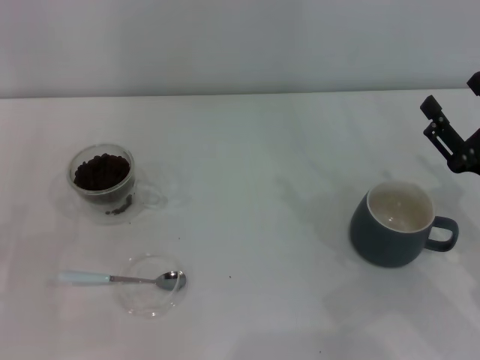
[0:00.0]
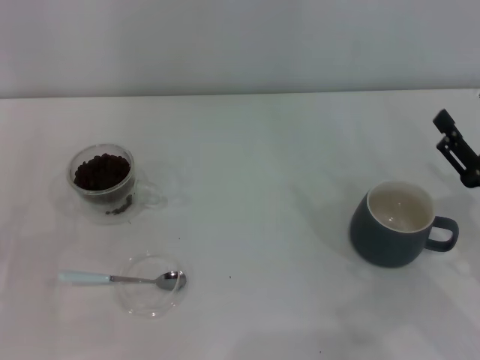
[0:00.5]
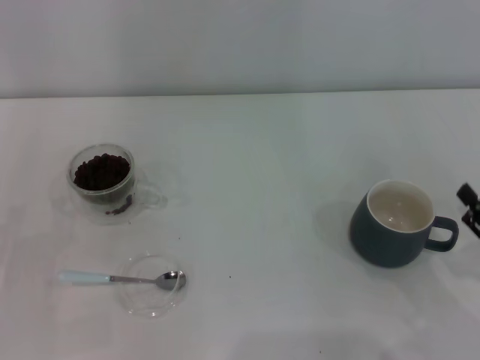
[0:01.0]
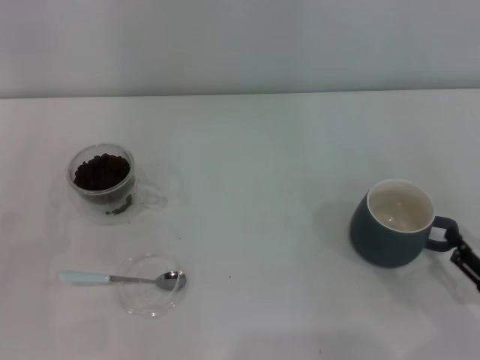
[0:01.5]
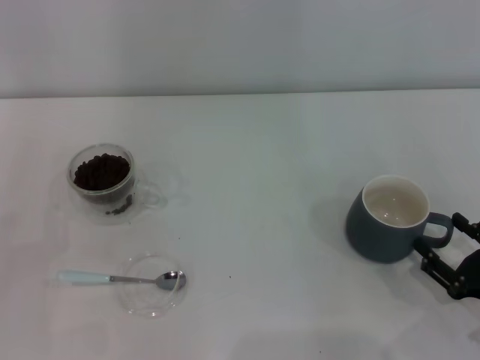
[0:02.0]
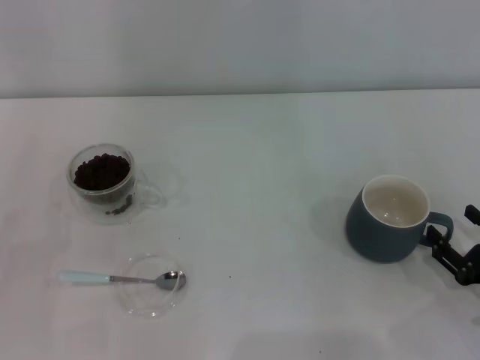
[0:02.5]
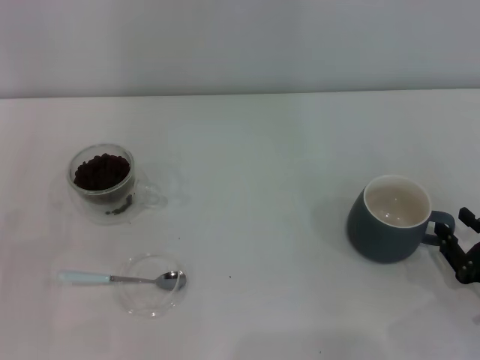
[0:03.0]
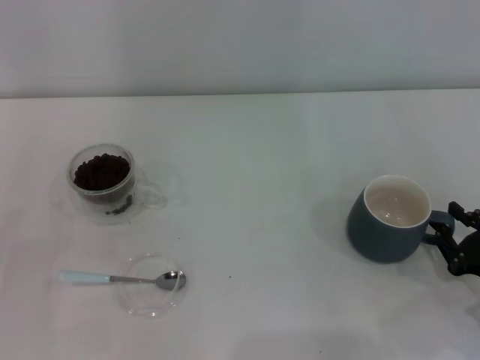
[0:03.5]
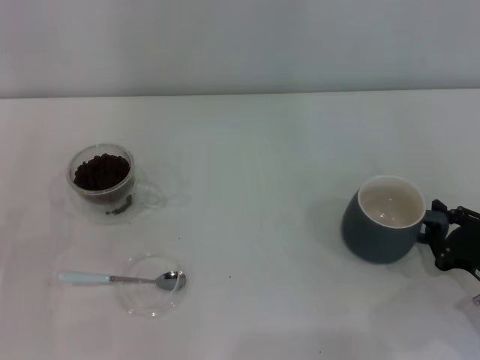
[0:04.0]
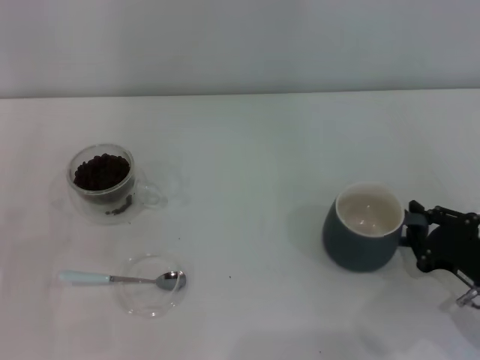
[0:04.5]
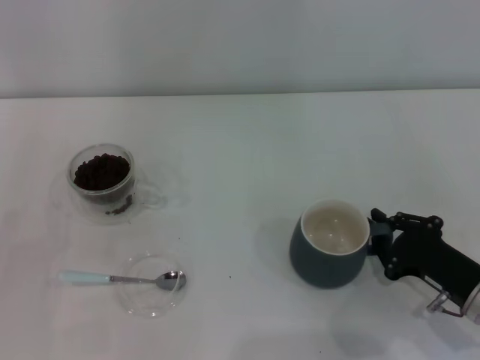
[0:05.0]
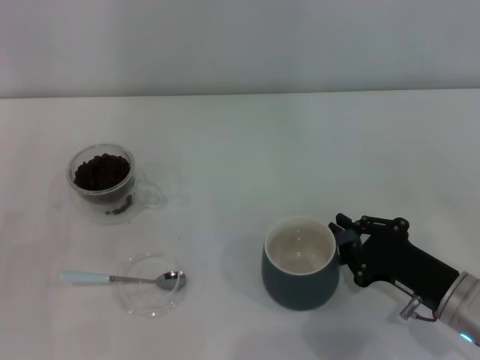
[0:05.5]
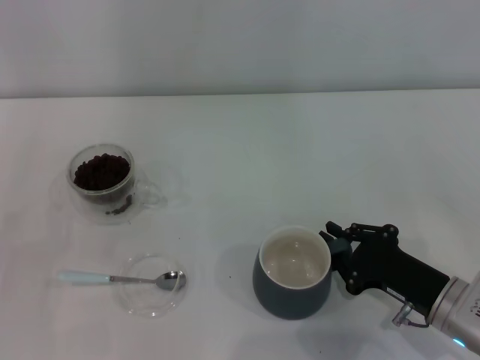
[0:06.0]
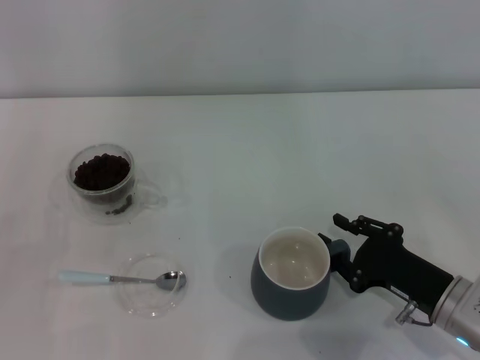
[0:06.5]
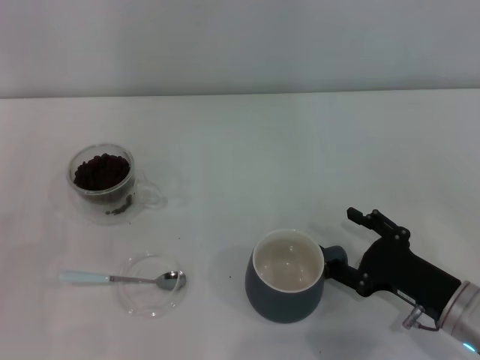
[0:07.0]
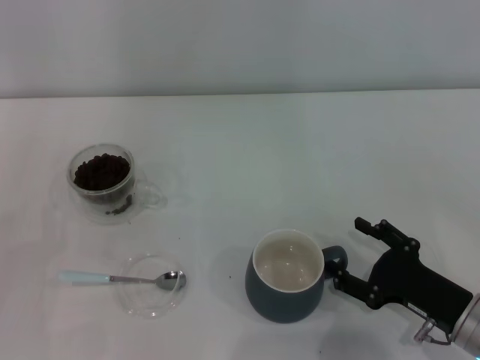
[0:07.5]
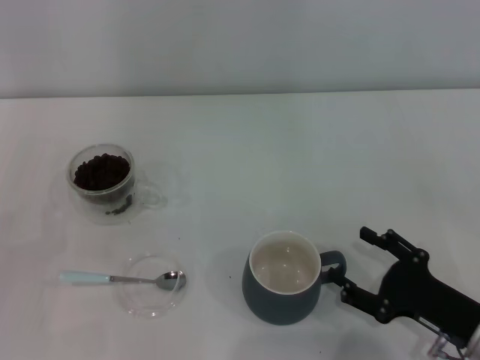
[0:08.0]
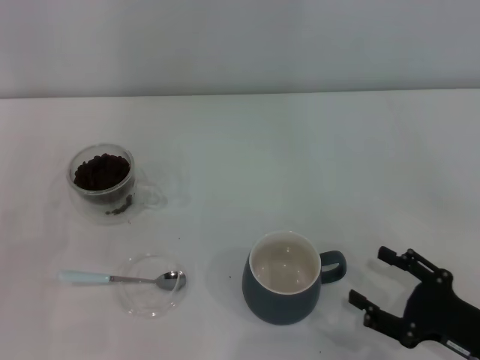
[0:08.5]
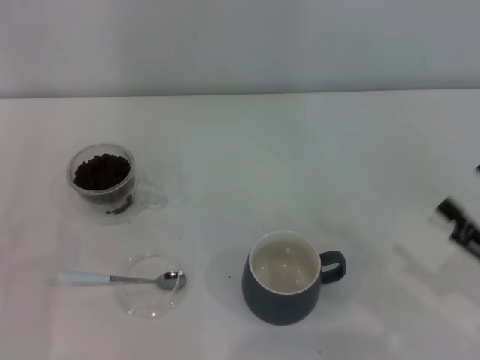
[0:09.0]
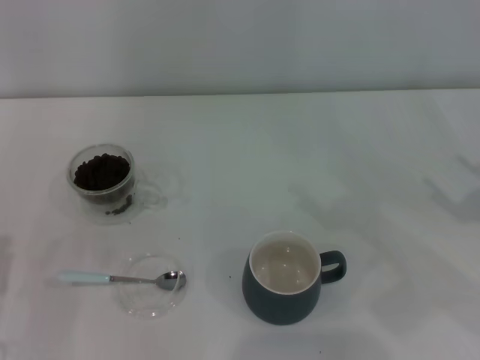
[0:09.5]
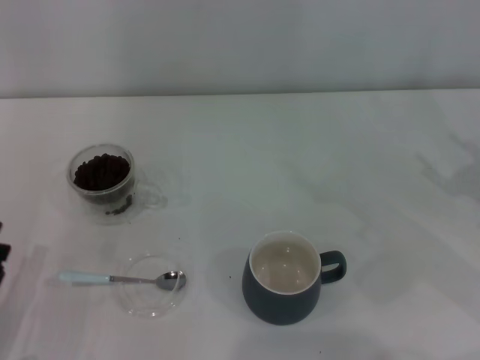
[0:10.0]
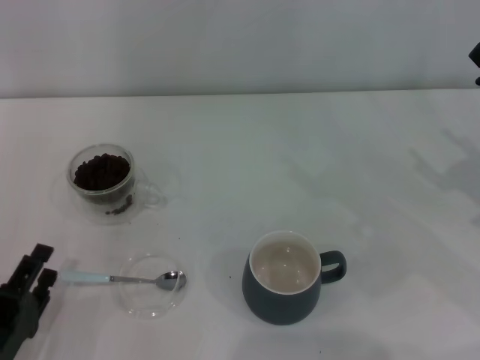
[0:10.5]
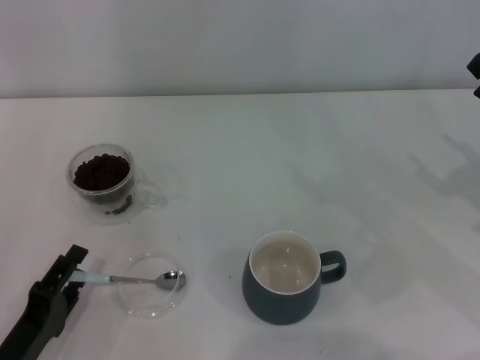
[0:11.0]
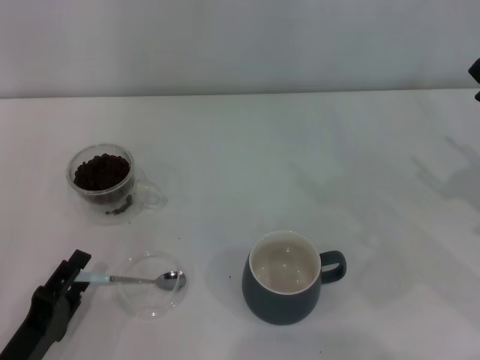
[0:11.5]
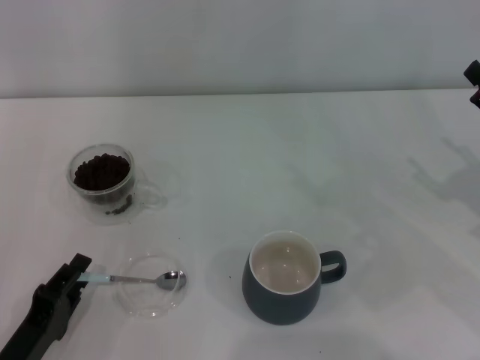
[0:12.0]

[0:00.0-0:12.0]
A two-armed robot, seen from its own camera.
Task of the whole recording: Use a blue spoon to take out the coffee beans from the glass and pour them into the gray cup.
0:00.0 to 0:02.0: The right gripper travels backward and downward by approximately 10 cm.
0:02.0 to 0:04.0: The right gripper closes.
0:04.0 to 0:06.0: The right gripper goes roughly 10 cm to the left.
0:06.0 to 0:08.0: The right gripper opens.
0:08.0 to 0:10.0: The right gripper heads upward, to the right and forward, covering roughly 15 cm.
0:10.0 to 0:12.0: The left gripper closes up.

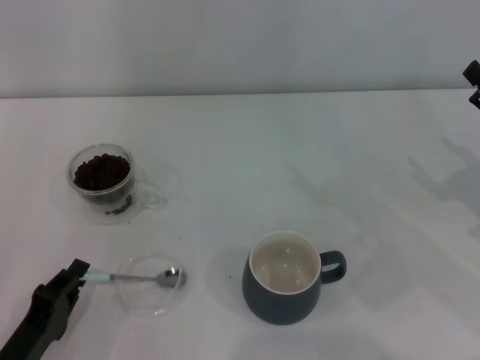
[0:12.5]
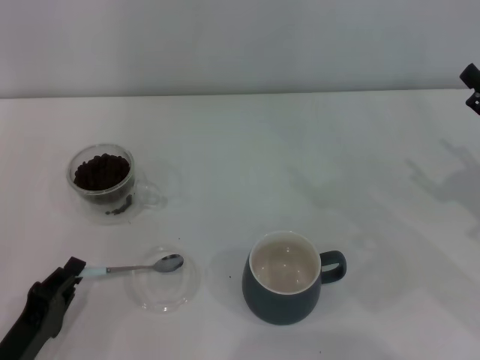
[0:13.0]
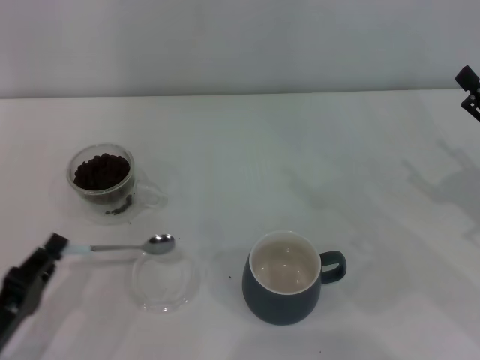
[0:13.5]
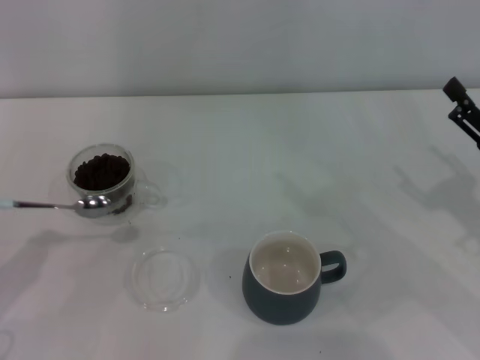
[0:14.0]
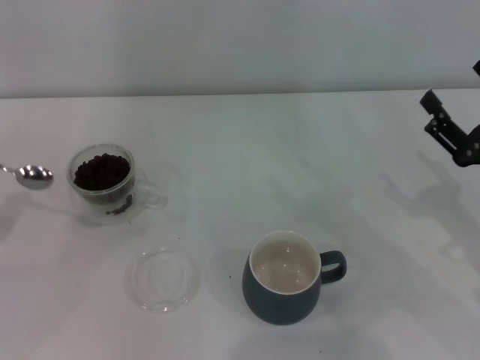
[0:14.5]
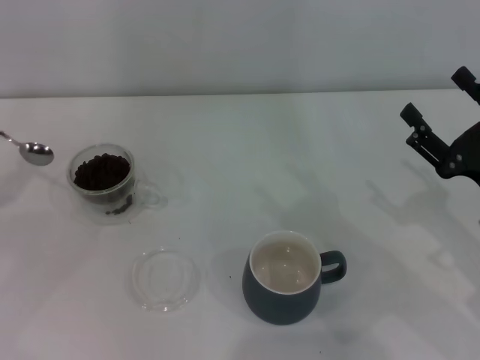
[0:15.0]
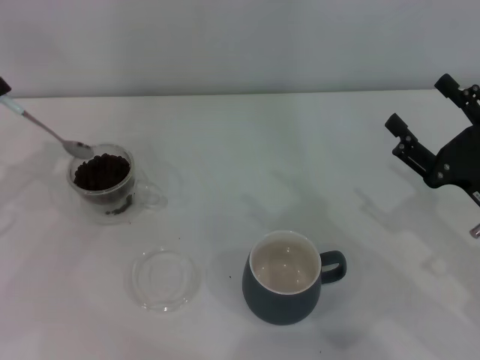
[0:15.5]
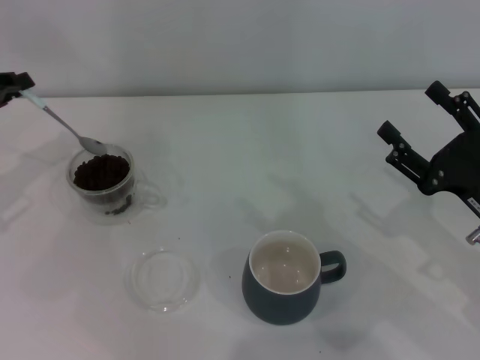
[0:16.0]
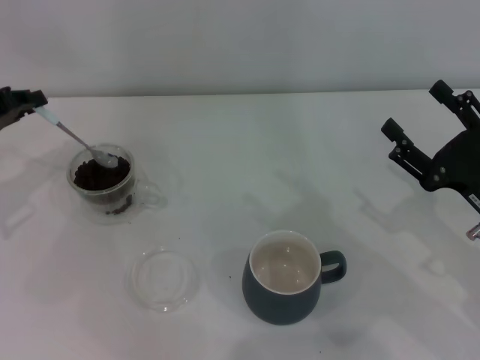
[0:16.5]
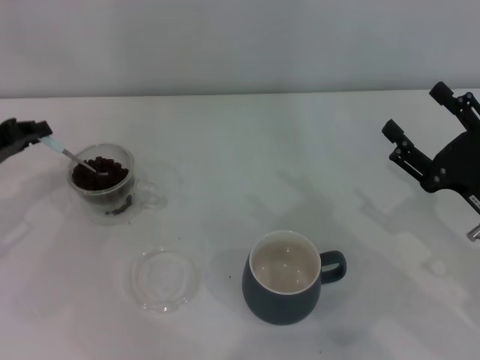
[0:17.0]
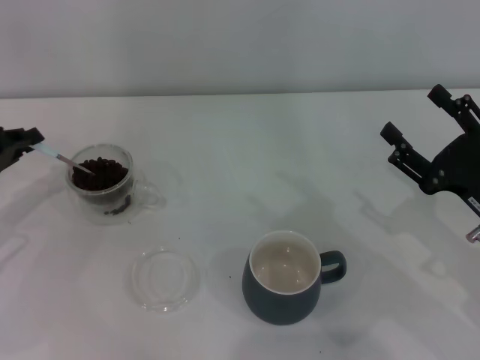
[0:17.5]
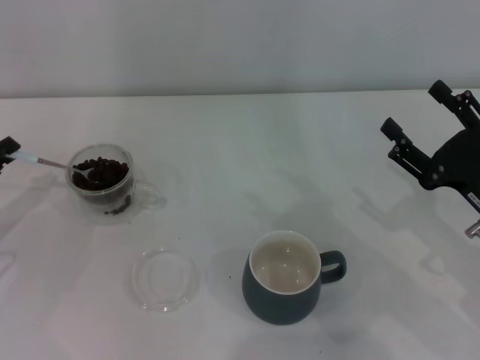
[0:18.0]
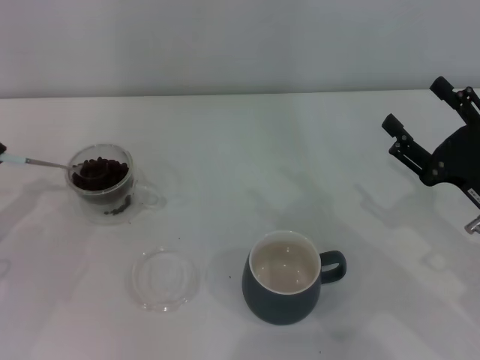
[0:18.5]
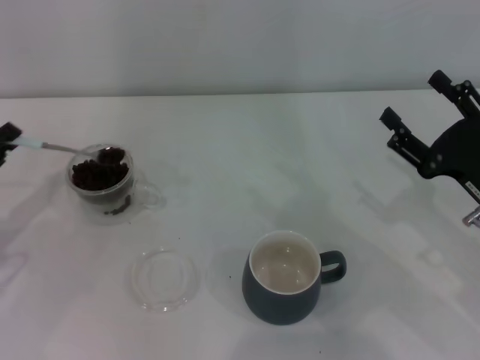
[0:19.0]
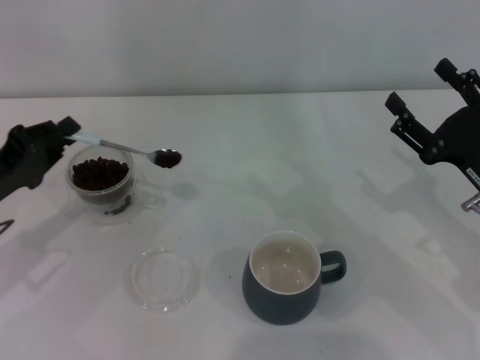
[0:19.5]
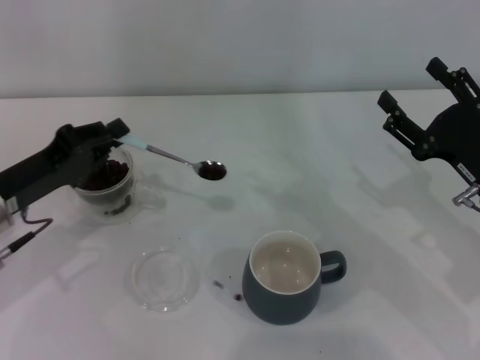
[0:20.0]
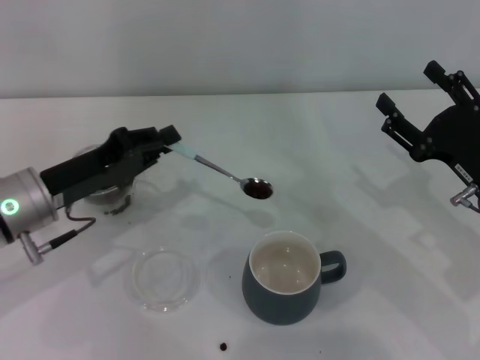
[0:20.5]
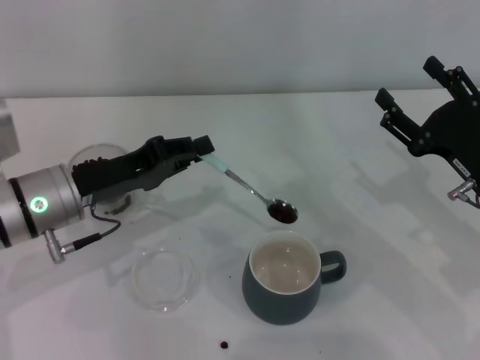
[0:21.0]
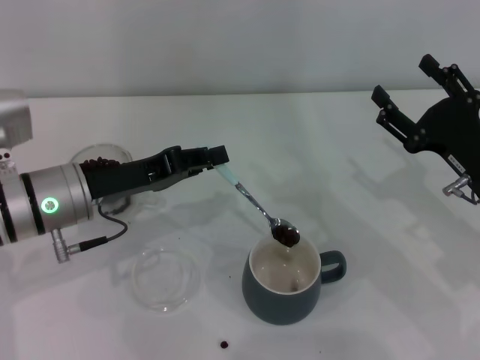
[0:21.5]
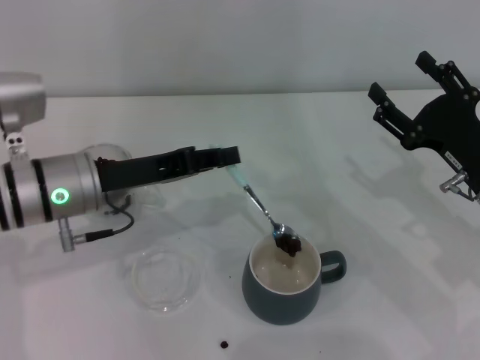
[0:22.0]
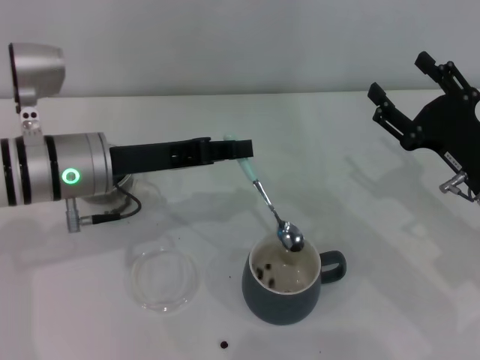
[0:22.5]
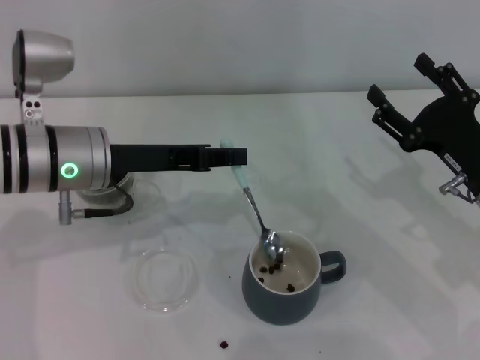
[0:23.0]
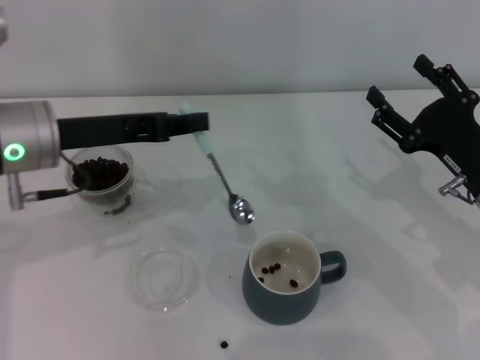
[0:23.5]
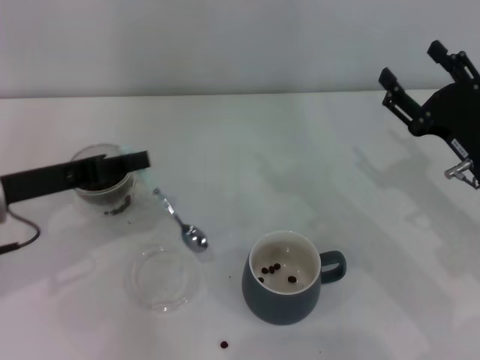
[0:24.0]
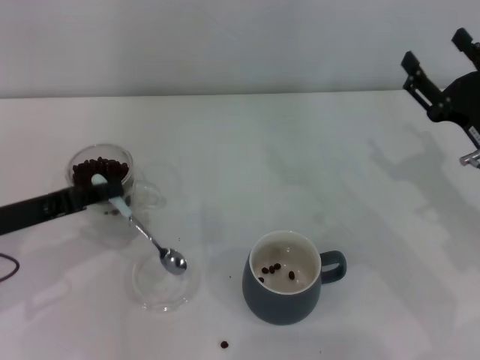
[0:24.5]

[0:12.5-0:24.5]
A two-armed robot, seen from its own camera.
Task of the whole recording: Use a blue spoon to take out the coffee beans from the glass and pour them into the gray cup.
Step, 0:13.5 to 0:23.5: Scoop a spoonful of beans into the cup with the right gripper.
0:12.5 to 0:14.5: The left gripper shifts some 20 cm to the left, upward and forward, while the right gripper ends up about 5 cm from where it was.
0:14.5 to 0:16.5: The left gripper shifts approximately 15 cm forward.
0:16.5 to 0:18.5: The left gripper moves backward and downward, about 10 cm.
0:18.5 to 0:20.5: The left gripper travels to the right by about 15 cm.
0:20.5 to 0:22.5: The left gripper moves to the right, approximately 5 cm.
0:22.5 to 0:24.5: The left gripper travels to the left and backward by roughly 10 cm.

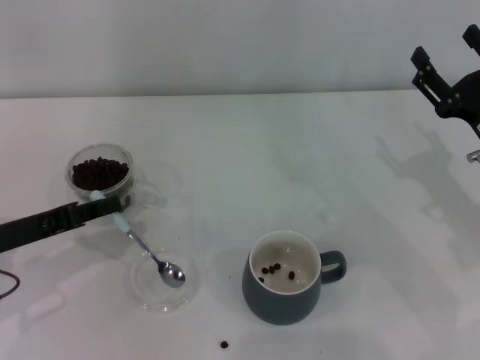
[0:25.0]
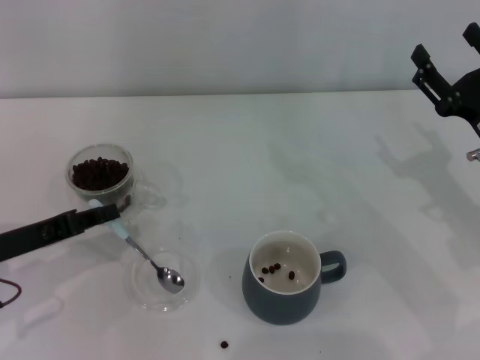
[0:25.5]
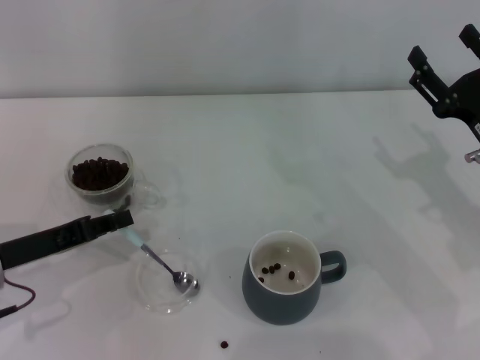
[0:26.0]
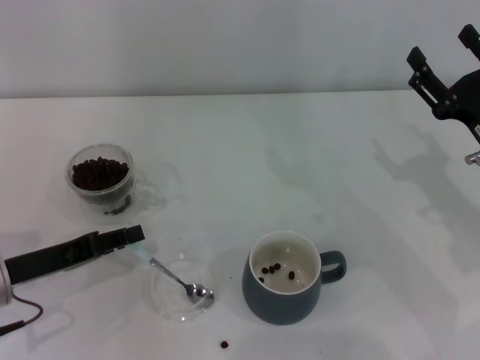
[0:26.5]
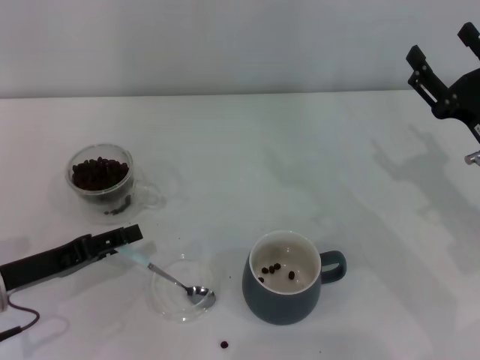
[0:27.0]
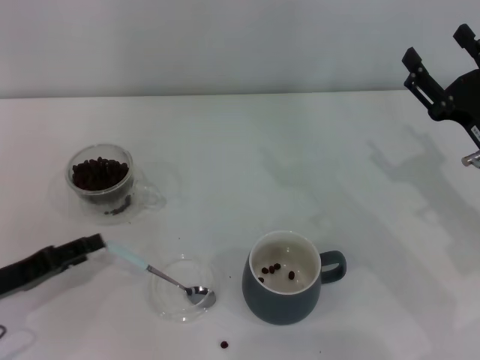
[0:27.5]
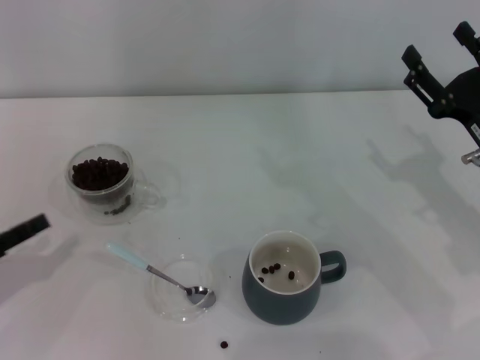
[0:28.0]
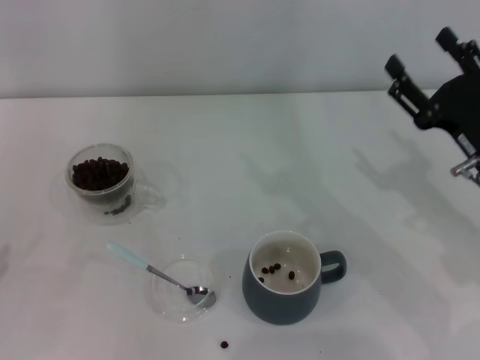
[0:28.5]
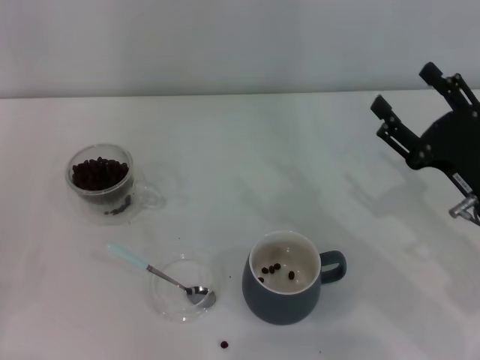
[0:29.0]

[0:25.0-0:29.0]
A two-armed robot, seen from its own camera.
Task of the whole recording: Use a blue spoon to take out the coffee beans from the glass and pour them into the gray cup.
0:25.0 to 0:27.0: The left gripper opens up.
0:27.0 to 0:29.0: The left gripper shifts approximately 15 cm to the left and backward.
